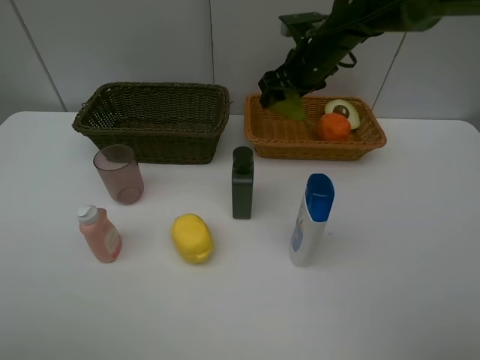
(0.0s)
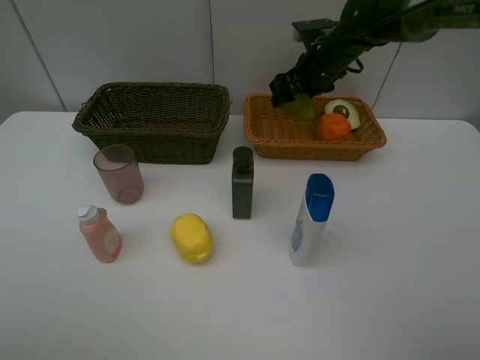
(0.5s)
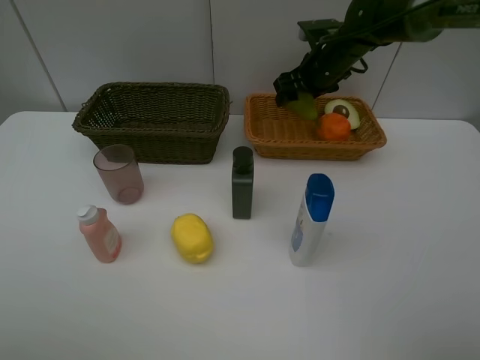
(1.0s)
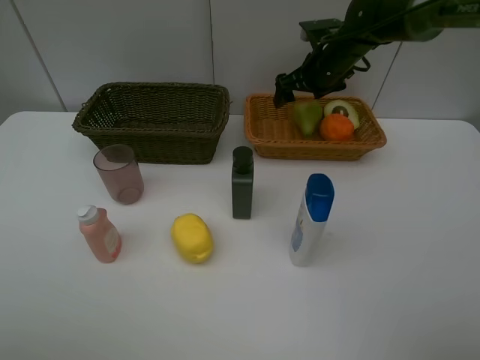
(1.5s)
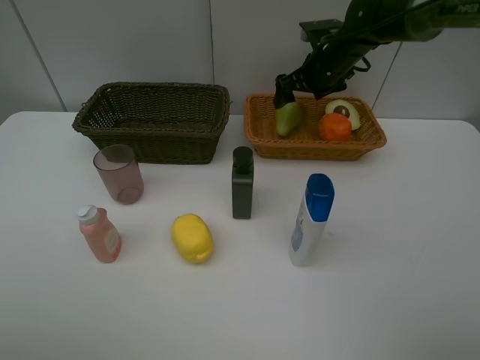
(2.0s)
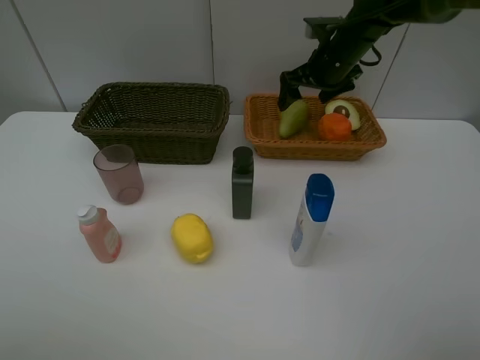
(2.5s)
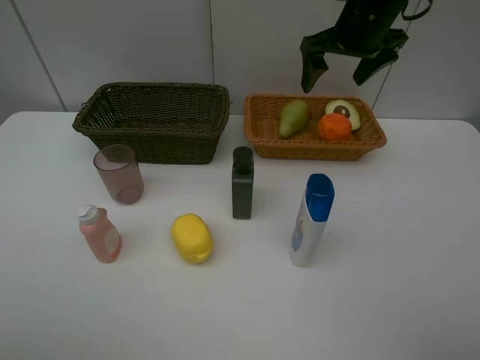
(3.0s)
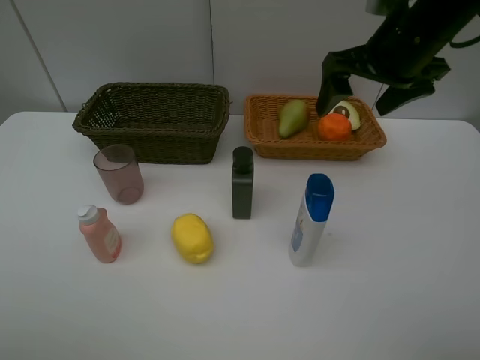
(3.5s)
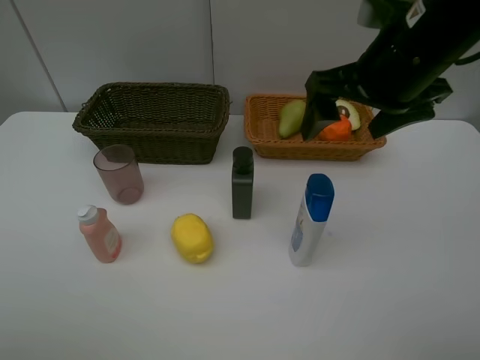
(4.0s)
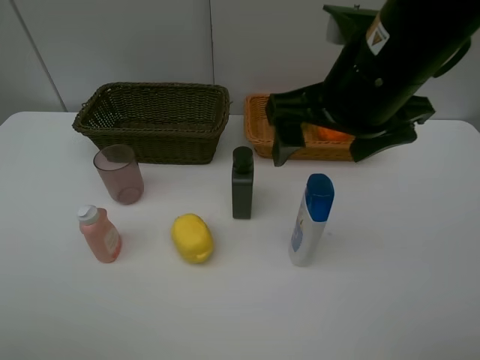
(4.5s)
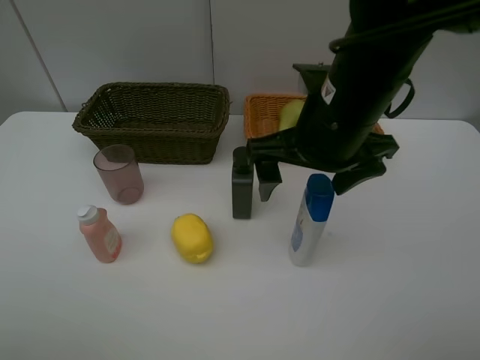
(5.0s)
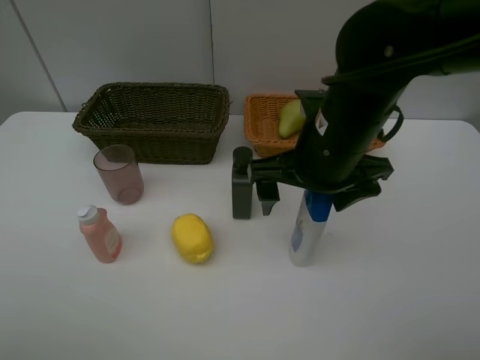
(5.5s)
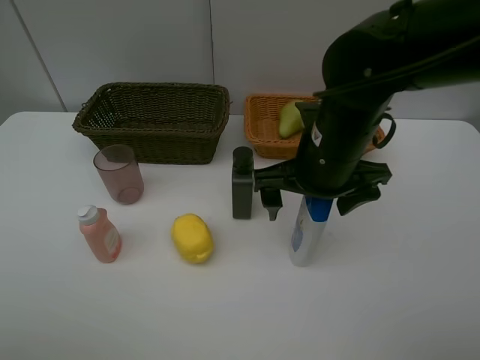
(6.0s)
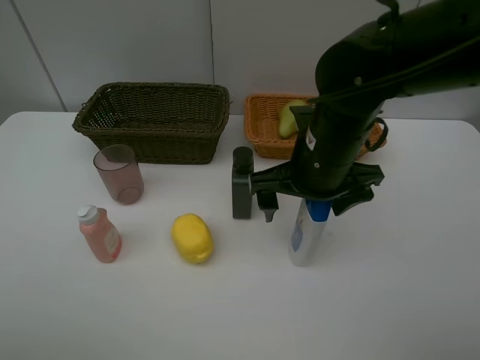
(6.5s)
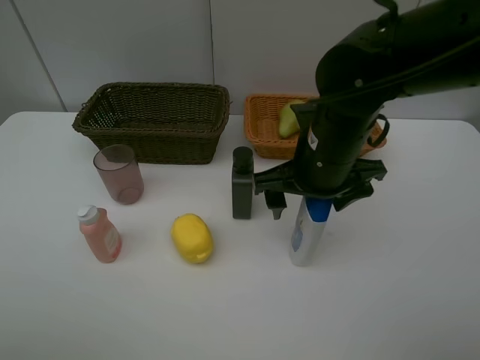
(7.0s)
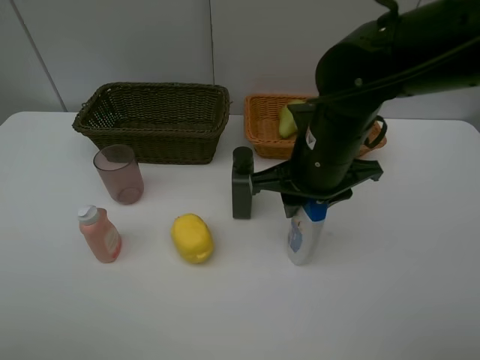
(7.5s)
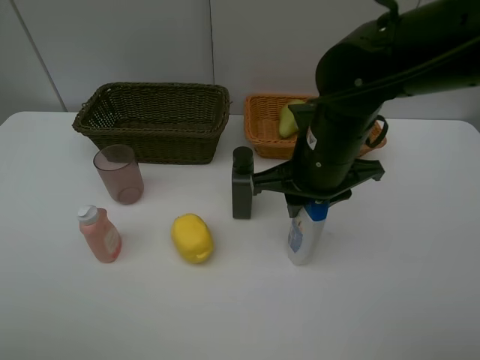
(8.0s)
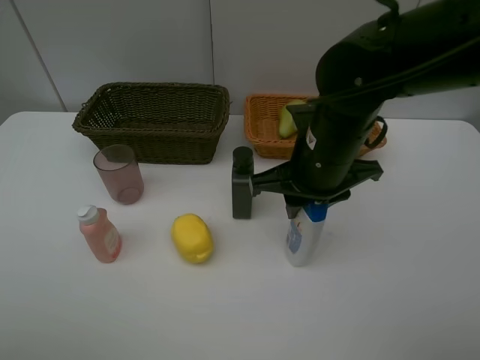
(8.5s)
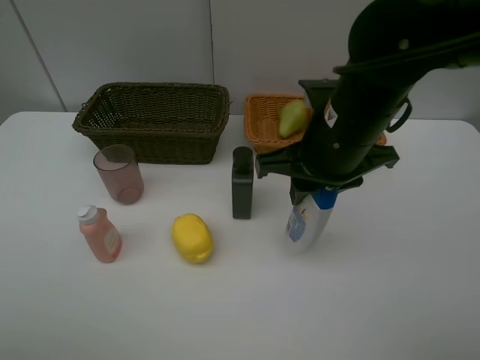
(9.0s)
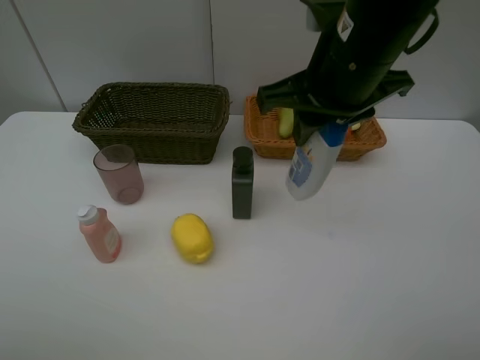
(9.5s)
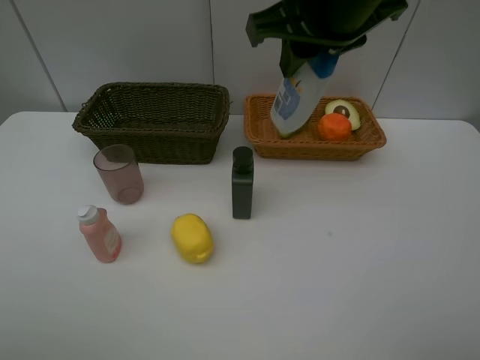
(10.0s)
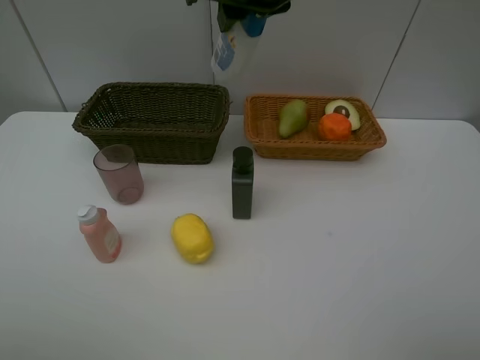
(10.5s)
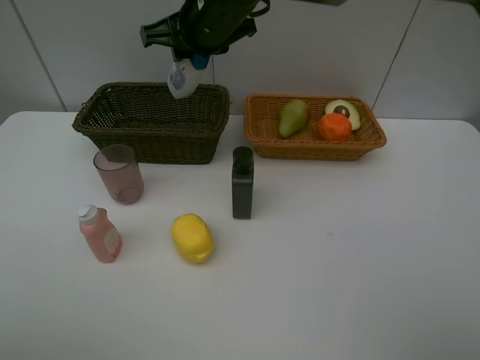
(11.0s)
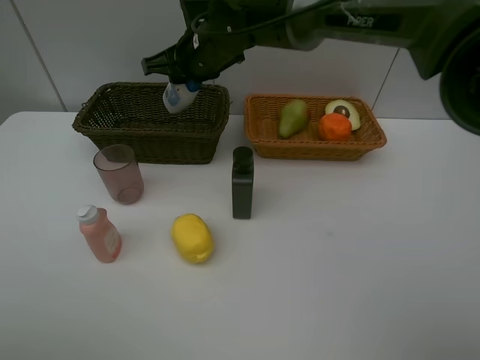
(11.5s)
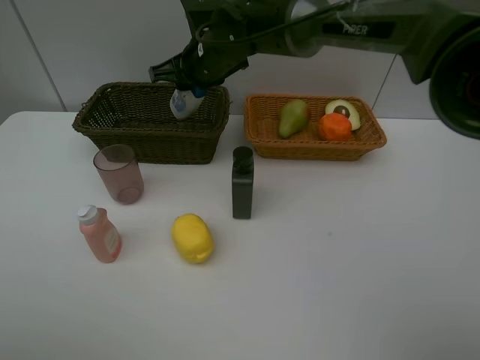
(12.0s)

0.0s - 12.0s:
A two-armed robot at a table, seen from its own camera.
Task of the whole recording: Place multiple objects separately in different baskets.
Step, 2.0s - 8.5s: Pick up the shampoo with right gripper.
0.0s - 2.0s: The right gripper opens.
2.0s - 4.0s: The right gripper heads backward and upward, covering some 25 cm.
4.0s - 6.0s: The right gripper moves downward, about 10 cm.
6.0s - 8.0s: The right gripper closes its fingers.
8.0s - 10.0s: The right gripper travels upward by about 15 cm.
10.0s - 12.0s: The right gripper is displaced forward, downward and to the left by roughly 25 cm.

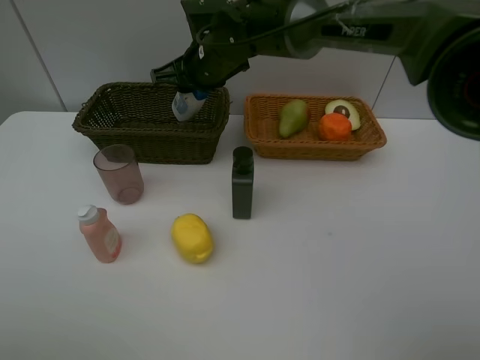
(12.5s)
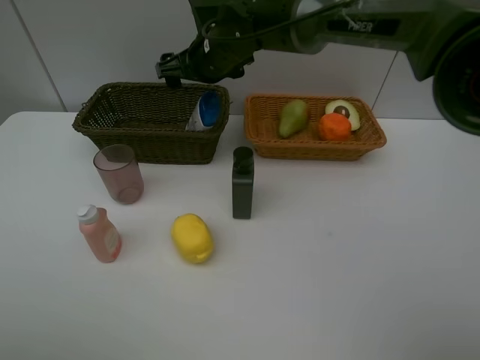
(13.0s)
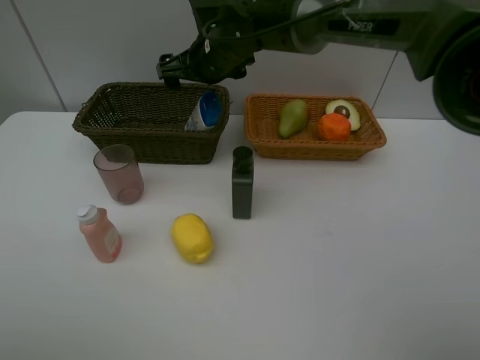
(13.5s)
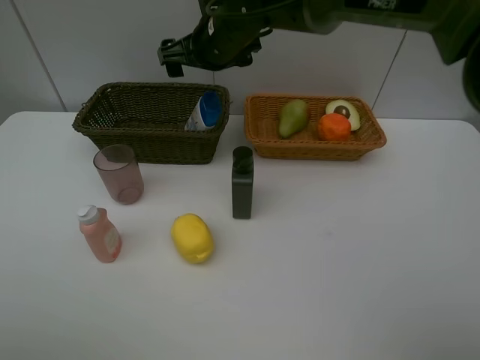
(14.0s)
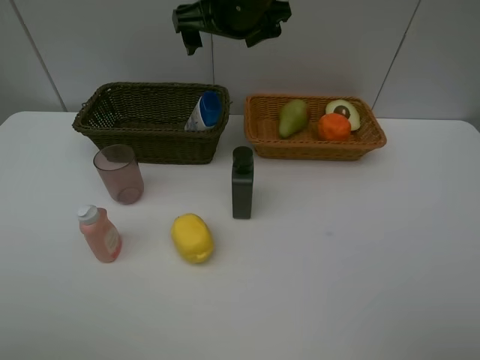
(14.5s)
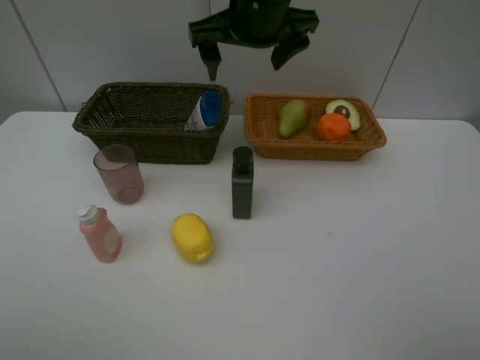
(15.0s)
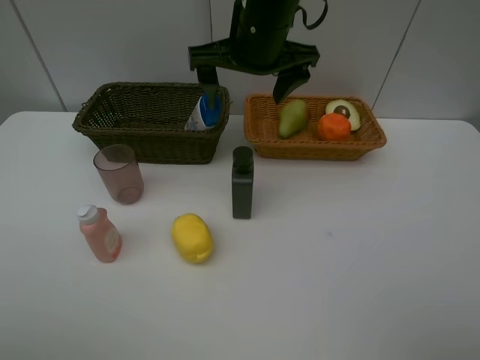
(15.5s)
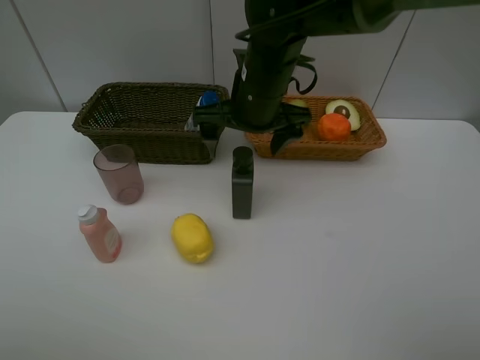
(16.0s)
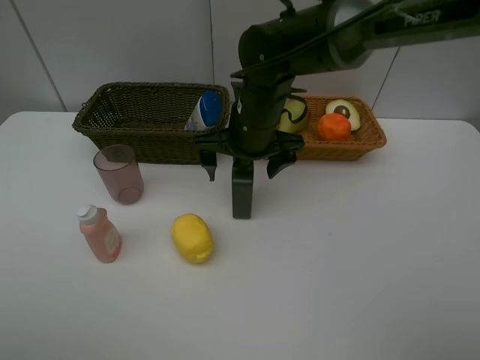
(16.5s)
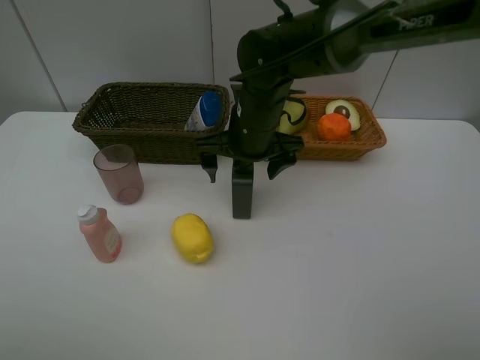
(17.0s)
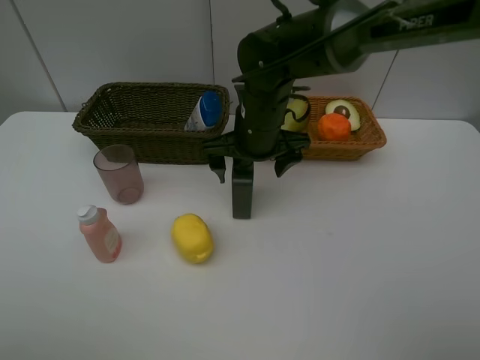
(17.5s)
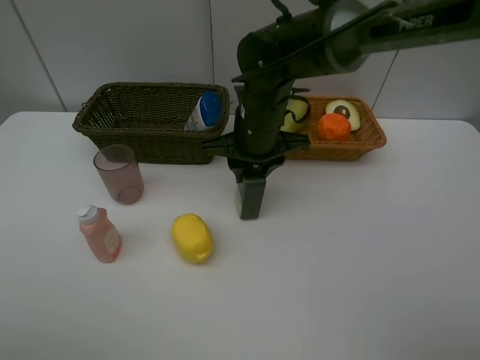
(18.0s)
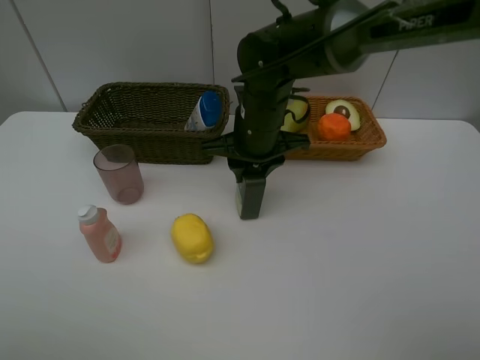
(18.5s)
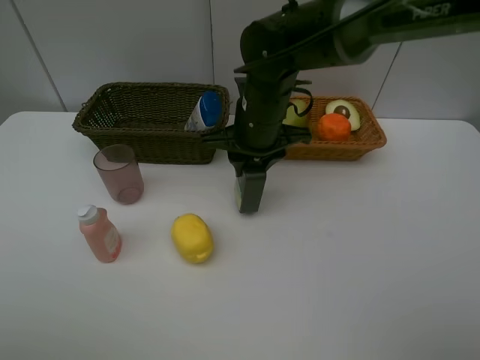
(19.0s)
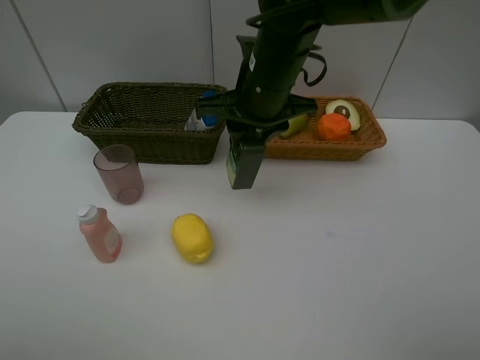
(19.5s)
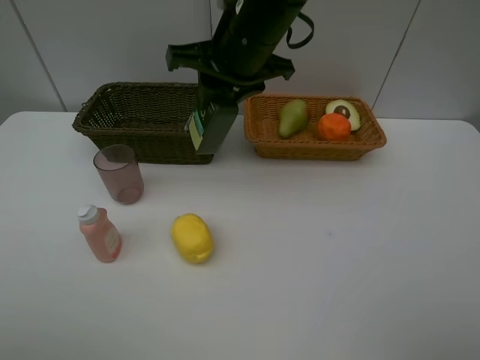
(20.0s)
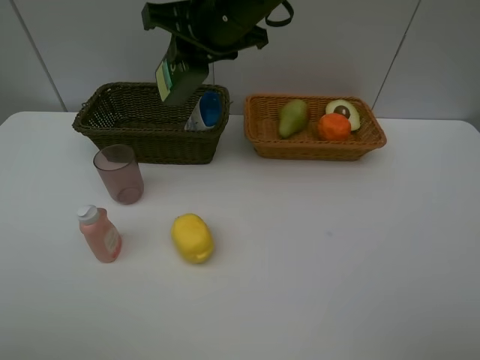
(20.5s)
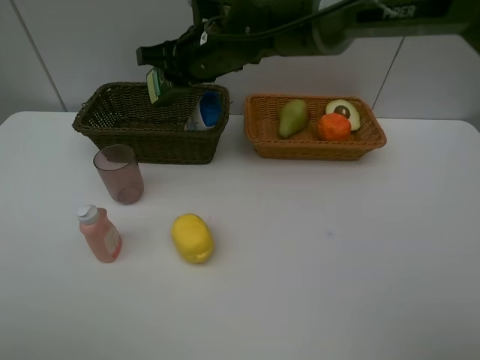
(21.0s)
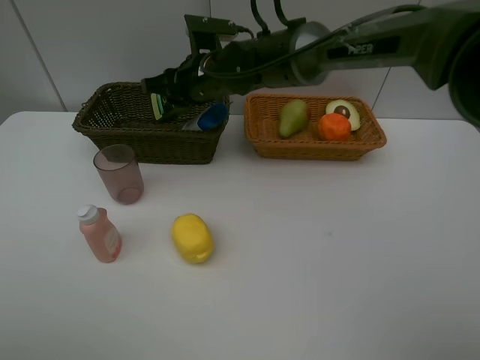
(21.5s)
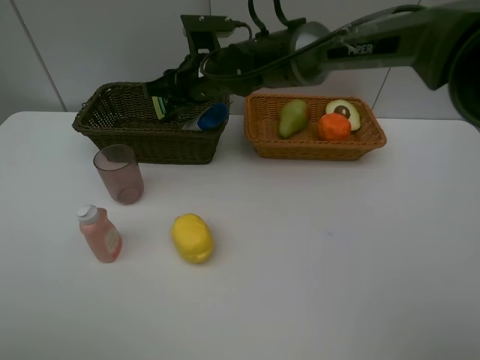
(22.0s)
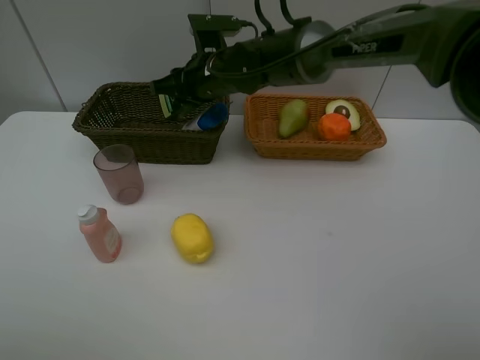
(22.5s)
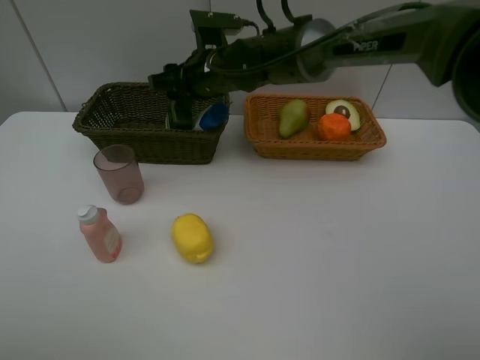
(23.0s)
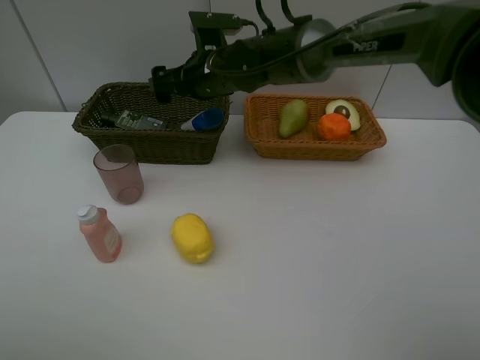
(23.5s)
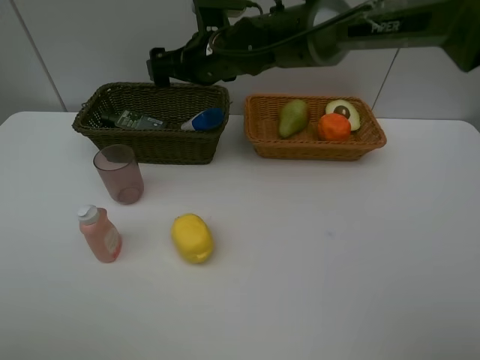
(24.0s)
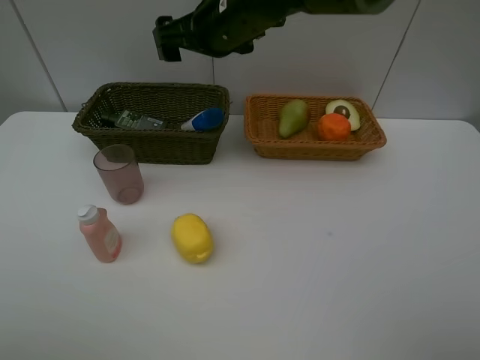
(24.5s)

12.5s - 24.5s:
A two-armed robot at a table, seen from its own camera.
Task of the whole recording: Place multiple objects separately in different baskets.
Step, 13.5s - 19.0s: Pick up the hard facial cleanser with right gripper.
Step, 19.5s - 23.5s: Place the hard facial cleanser in the dark basket with right gripper.
12.5s - 14.5s: The right gripper shifts approximately 10 cm upward, and opens.
14.5s - 16.5s: The right gripper moves downward and backward, about 15 cm.
16.5s - 18.5s: The right gripper closes.
18.5s - 20.5s: The right gripper shifts roughly 15 cm upward.
20.5s - 22.5s: The right gripper shifts about 10 cm downward and forward.
22.5s - 24.5s: The right gripper travels upward by about 10 cm, and opens up.

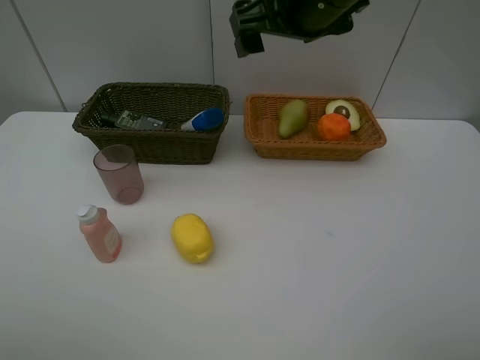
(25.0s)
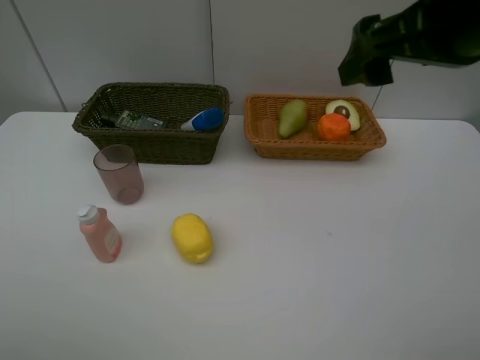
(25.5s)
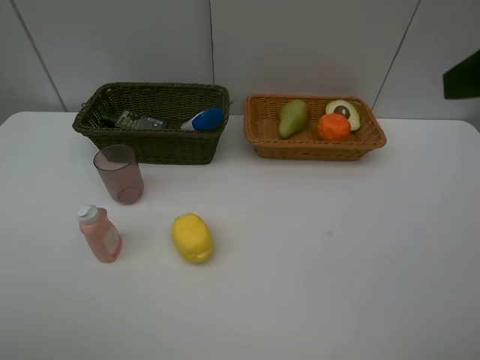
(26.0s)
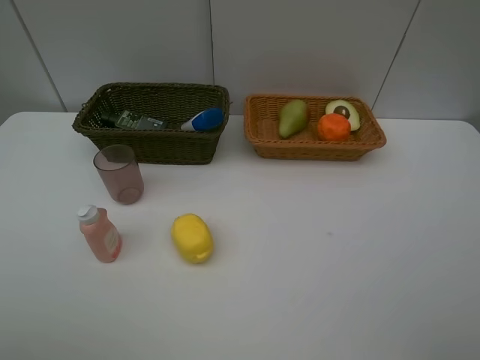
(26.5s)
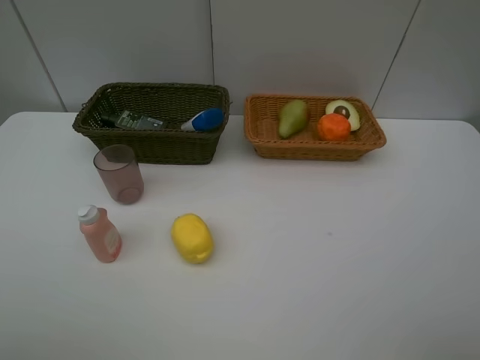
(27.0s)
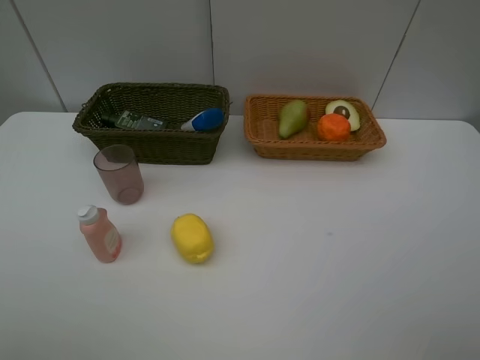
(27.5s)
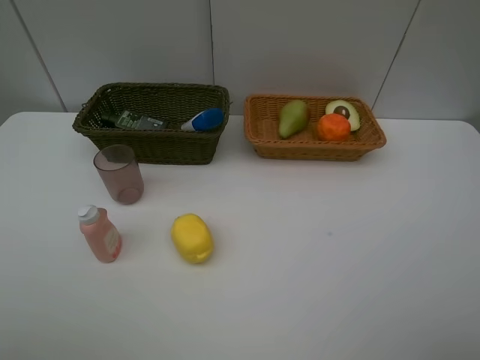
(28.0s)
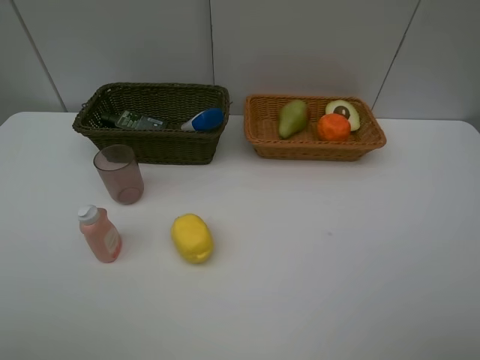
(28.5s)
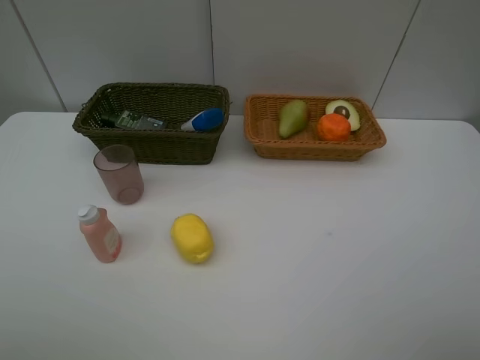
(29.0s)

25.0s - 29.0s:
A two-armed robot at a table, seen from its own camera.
Task of the whole recording: Place multiple objects separately in different baskets.
25.0s - 27.0s: The right gripper moves backward and to the right, some 30 cm.
